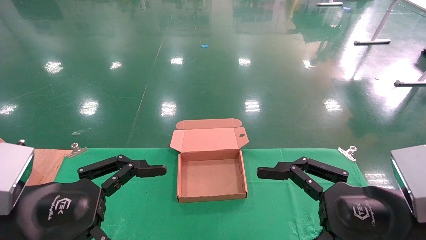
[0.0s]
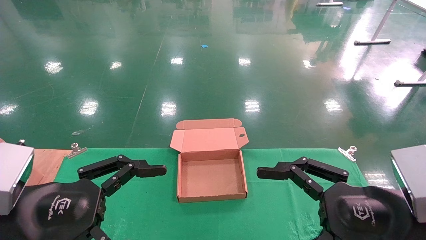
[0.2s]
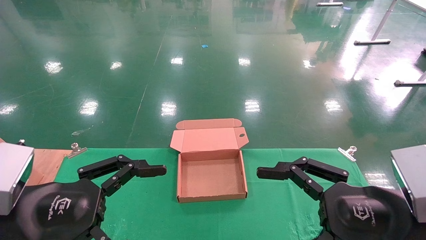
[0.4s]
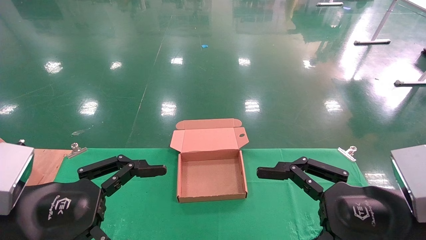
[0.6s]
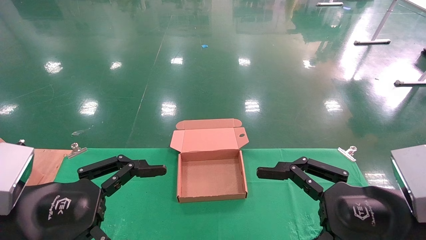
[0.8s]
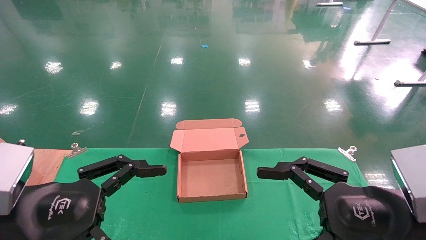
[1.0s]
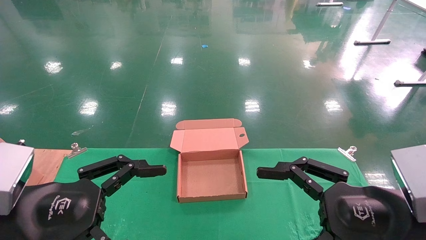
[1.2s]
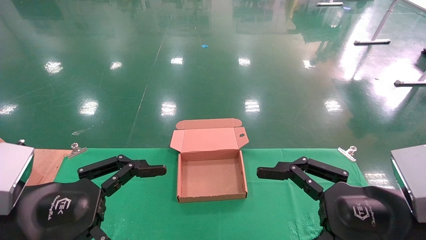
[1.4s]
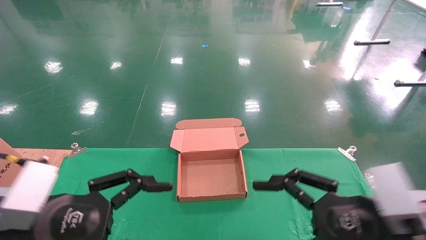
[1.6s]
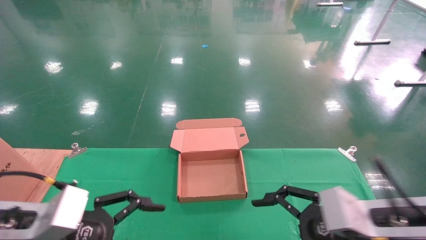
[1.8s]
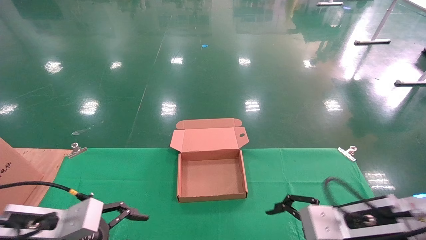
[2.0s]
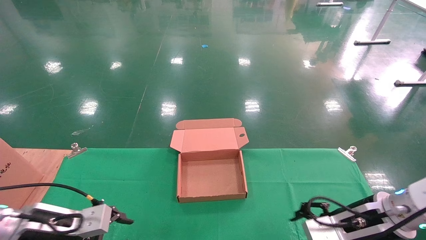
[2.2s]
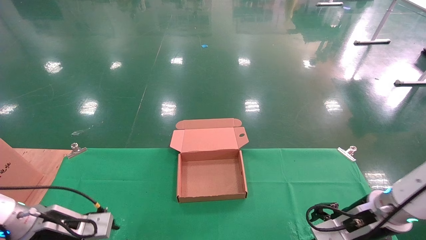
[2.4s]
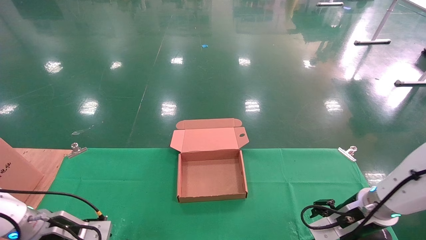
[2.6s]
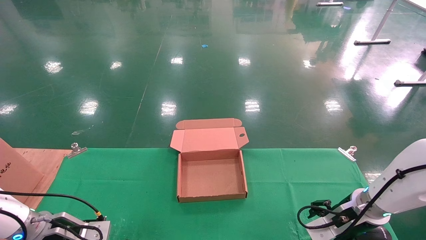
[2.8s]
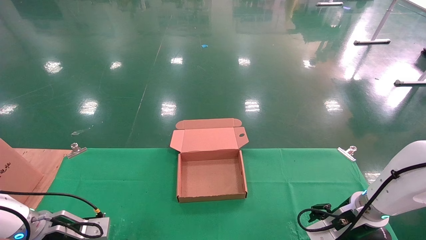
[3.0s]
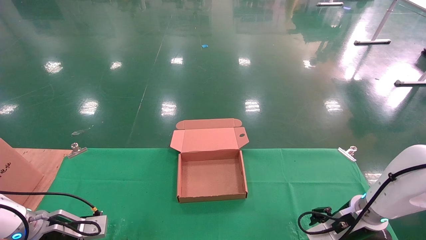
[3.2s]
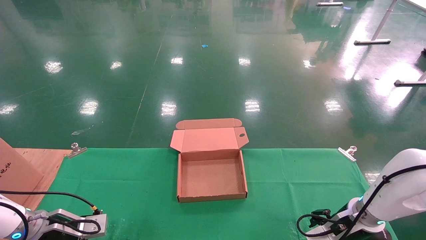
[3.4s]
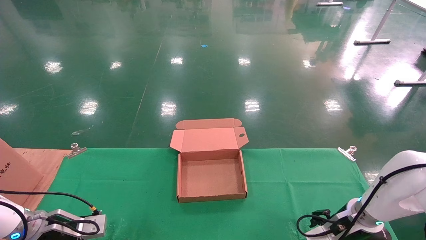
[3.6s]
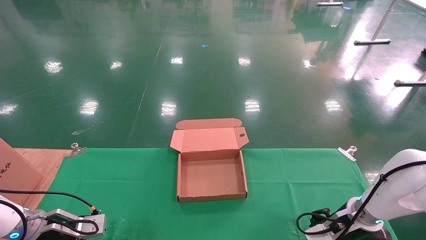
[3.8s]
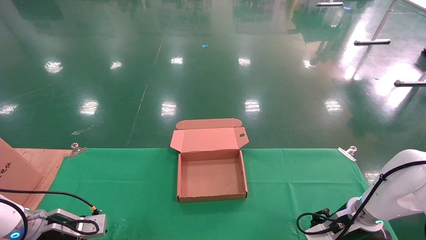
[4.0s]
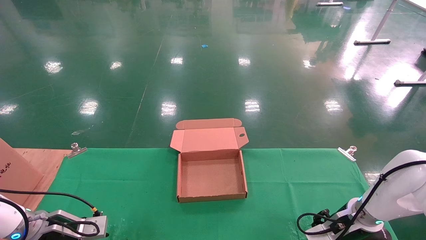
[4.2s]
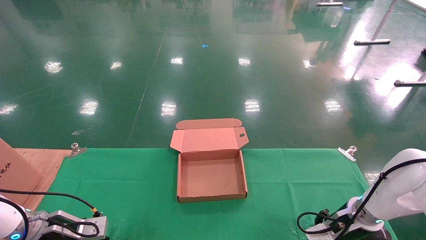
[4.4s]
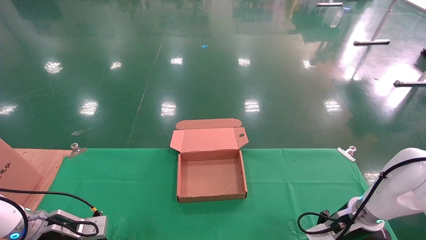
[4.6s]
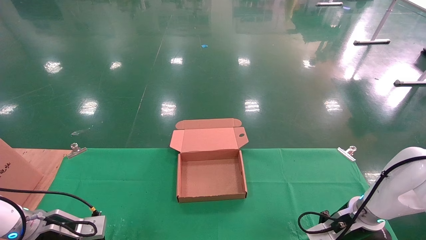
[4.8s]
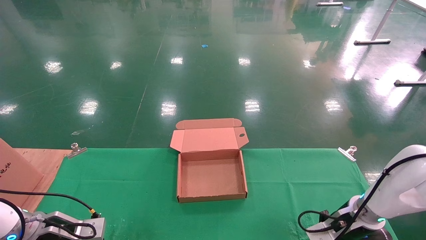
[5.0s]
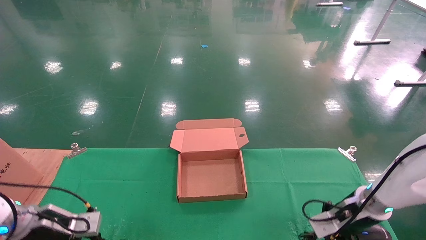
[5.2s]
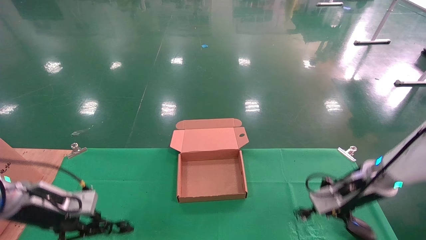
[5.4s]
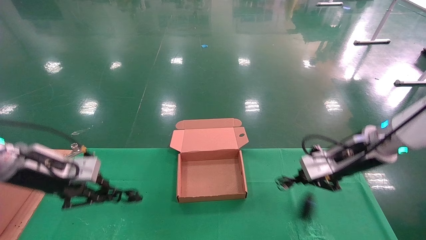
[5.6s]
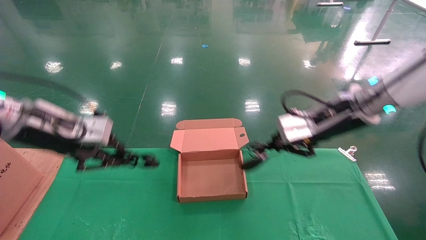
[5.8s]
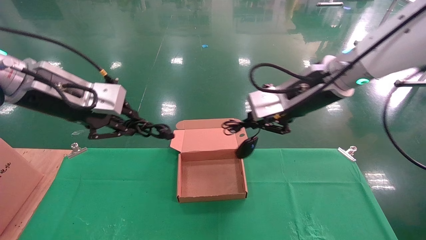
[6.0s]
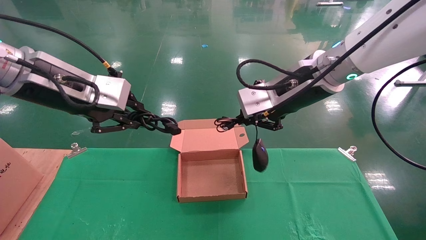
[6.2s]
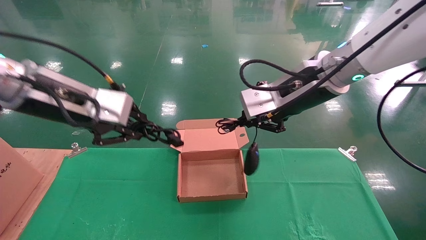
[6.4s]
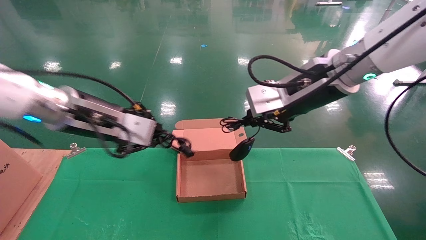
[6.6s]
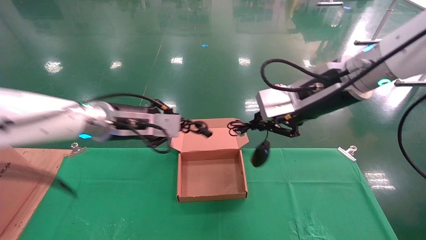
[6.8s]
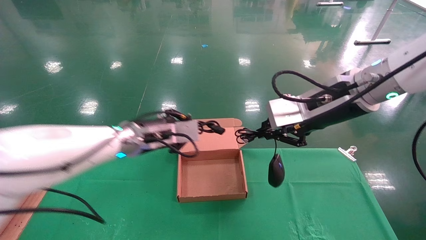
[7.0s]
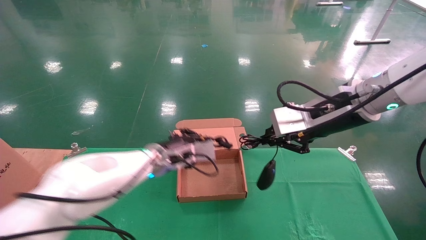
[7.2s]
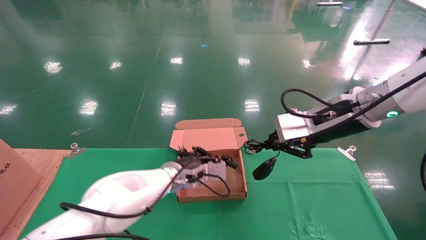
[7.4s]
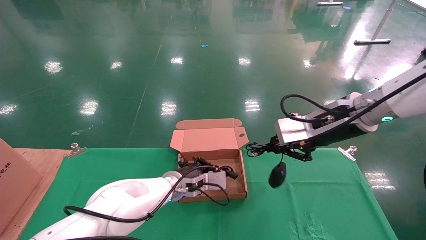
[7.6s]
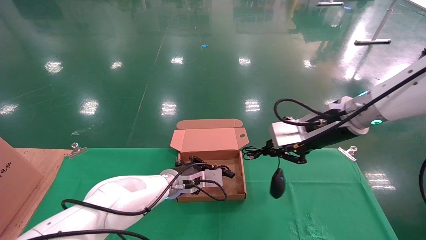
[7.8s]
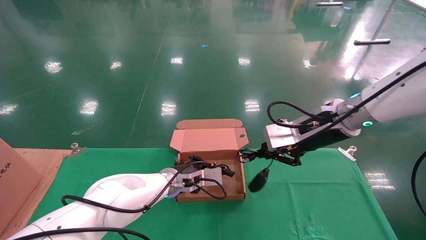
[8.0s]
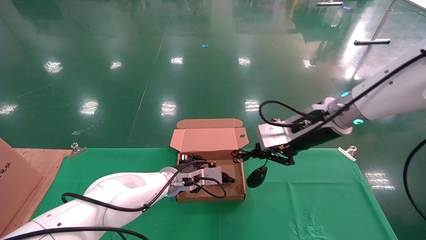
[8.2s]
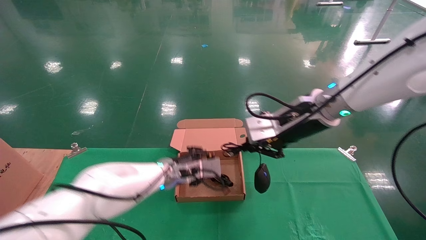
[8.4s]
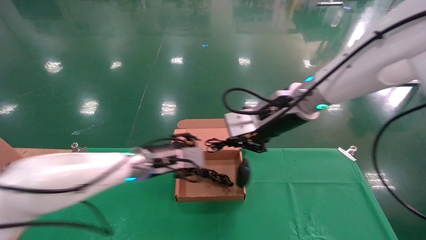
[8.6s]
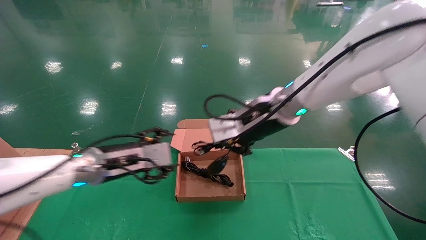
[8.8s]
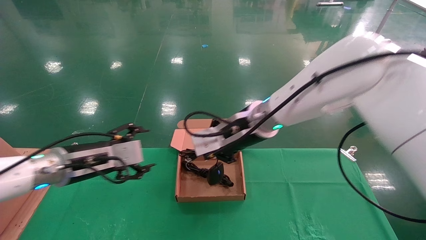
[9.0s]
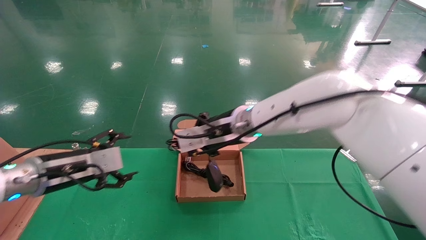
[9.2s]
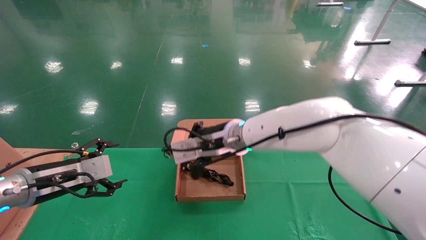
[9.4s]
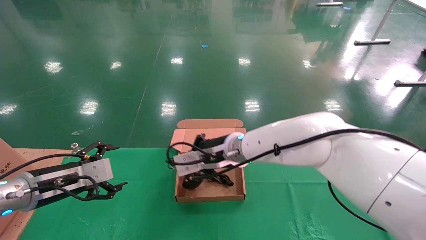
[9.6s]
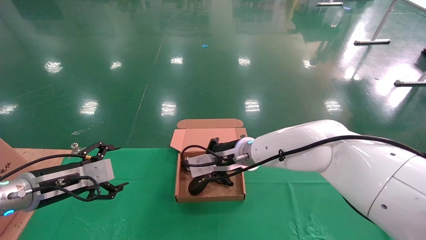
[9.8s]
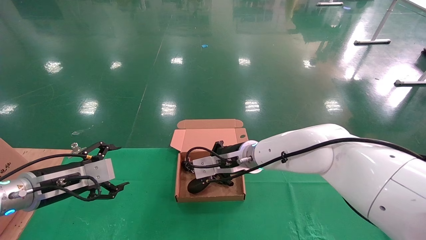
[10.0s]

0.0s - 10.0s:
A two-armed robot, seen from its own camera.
Step, 1.8s - 5.4s: Grab and lift both the mouse and power cord from the accessory packaging area at the same time.
0.0s - 1.4s: The two grippers keep their place.
1.4s - 2.8s: The right gripper travels forward and downward by some 25 cm; the left gripper heads forward, downward and to the left, covering roughly 25 cm.
2.8s - 4.2s: The grippers stay close to where they were, moving slightly.
4.2s - 5.8s: Both grippers travel together upward, approximately 25 cm. The right gripper closes. Meanwhile the left gripper closes its fingers.
5.8s - 7.2s: The left gripper heads to the right, downward and forward, covering some 25 cm.
7.2s - 8.6s: The right gripper heads to the left, covering roughly 10 cm; the left gripper reaches roughly 10 cm downward, then returns, and opens its fingers.
8.6s - 10.0s: The right gripper goes some 15 cm downward, to the left and forward. Meanwhile the left gripper goes some 20 cm to the left and backward, and opens.

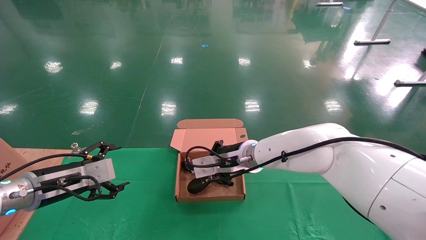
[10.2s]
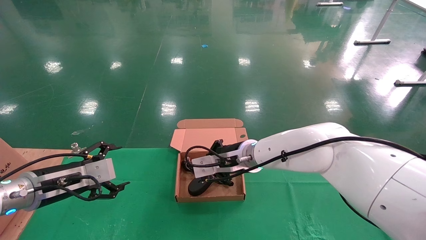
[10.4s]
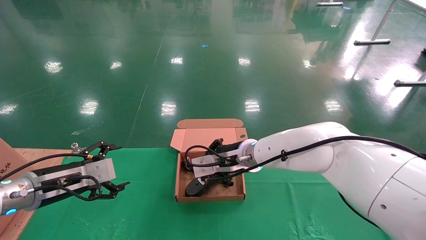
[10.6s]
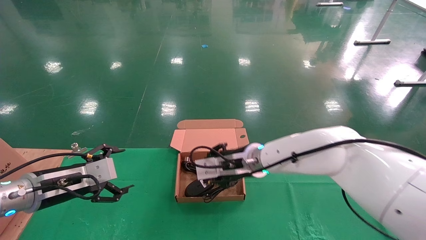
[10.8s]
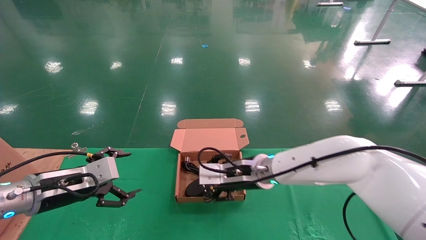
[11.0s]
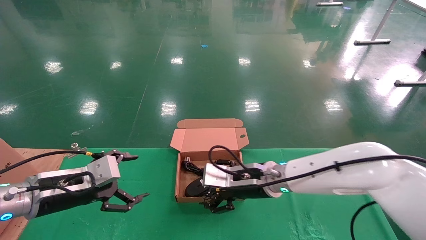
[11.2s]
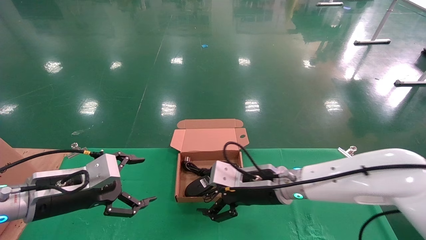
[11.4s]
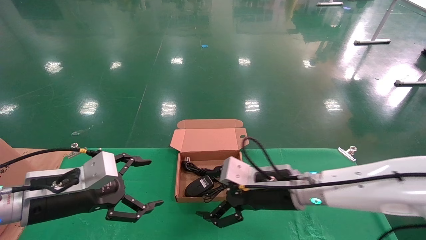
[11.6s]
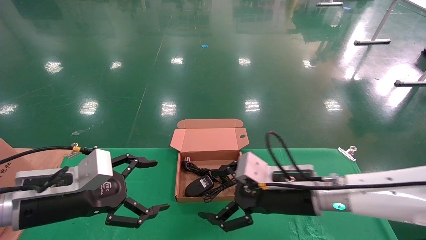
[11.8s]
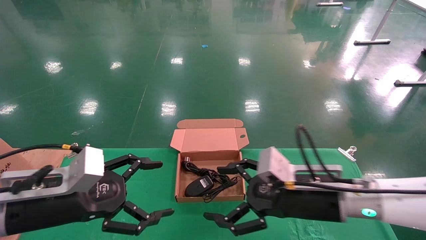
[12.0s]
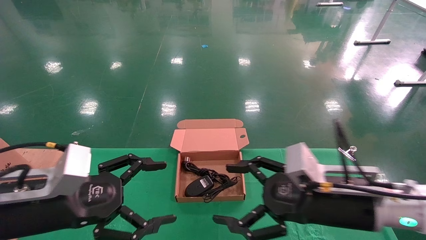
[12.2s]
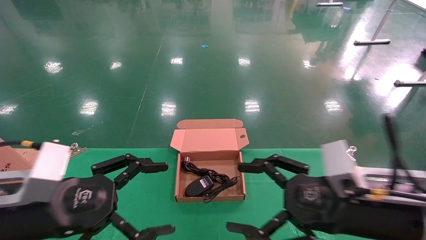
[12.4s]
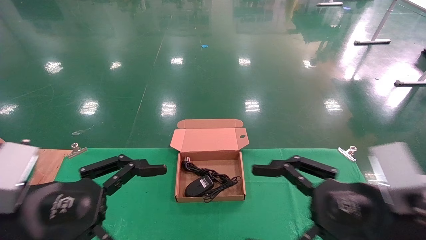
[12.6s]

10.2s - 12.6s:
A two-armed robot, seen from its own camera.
10.2s - 11.4s: The right gripper is displaced backward and to the right by some 10 cm, and opens; the left gripper ends up about 5 cm from where it was.
11.4s - 12.6s: The right gripper travels backward and to the right by about 20 cm; the left gripper goes some 10 cm backward.
